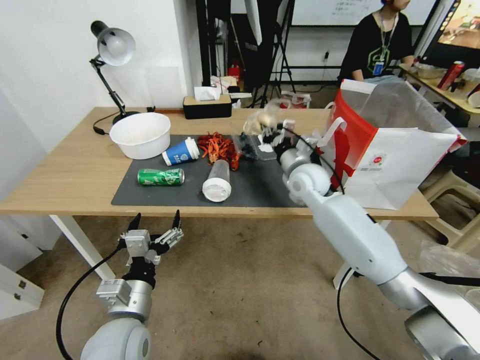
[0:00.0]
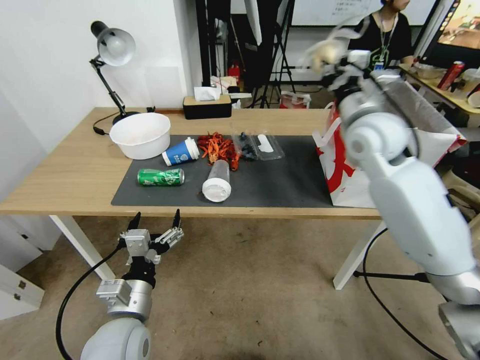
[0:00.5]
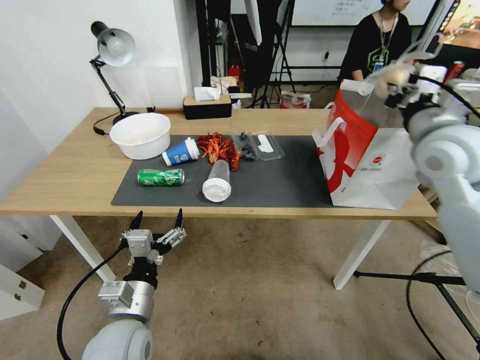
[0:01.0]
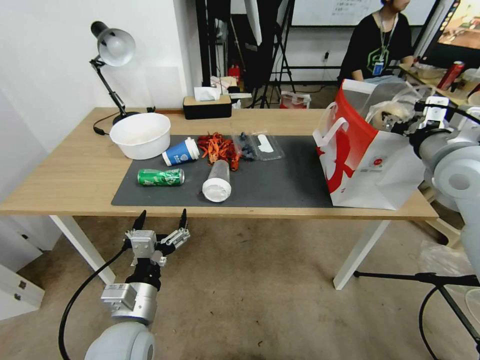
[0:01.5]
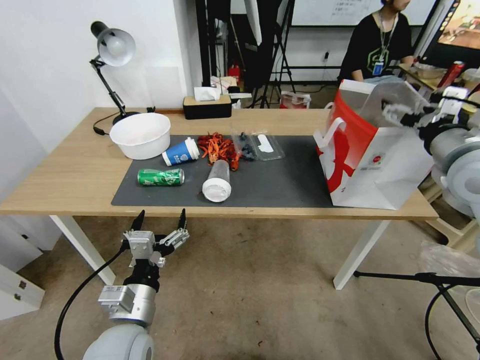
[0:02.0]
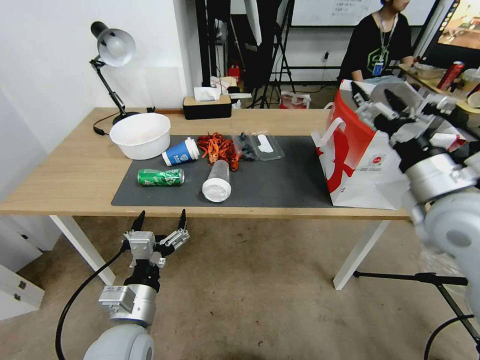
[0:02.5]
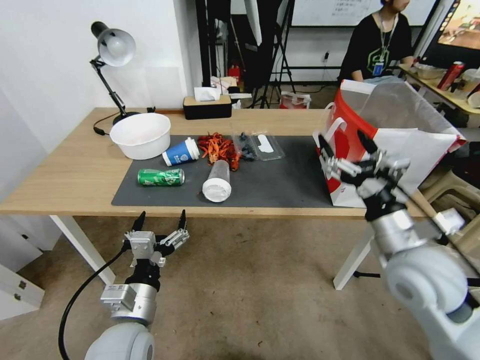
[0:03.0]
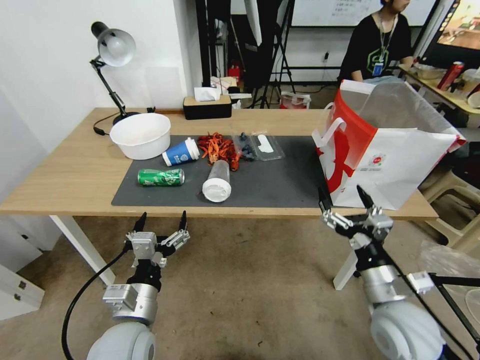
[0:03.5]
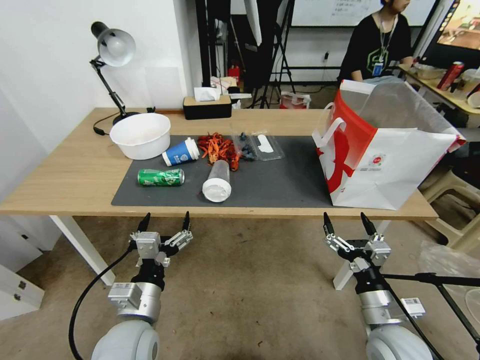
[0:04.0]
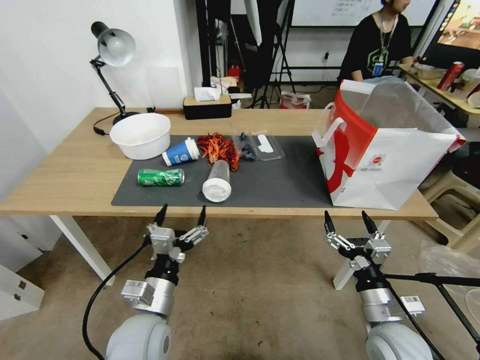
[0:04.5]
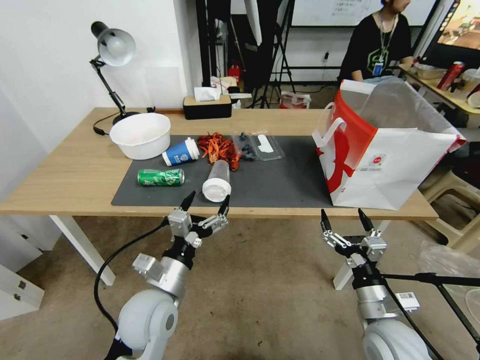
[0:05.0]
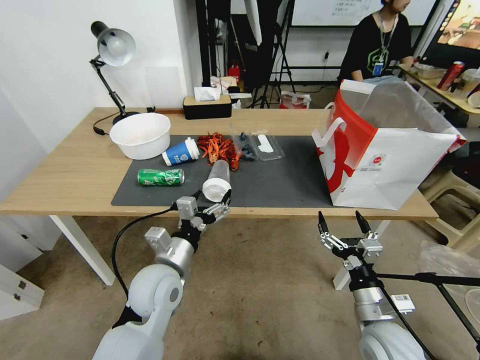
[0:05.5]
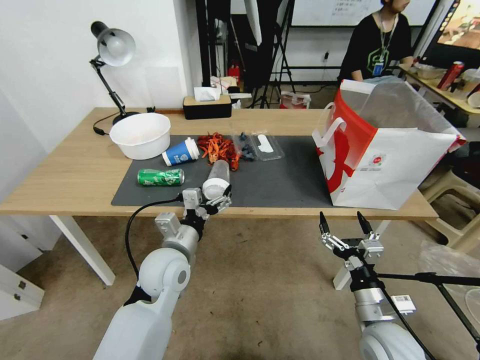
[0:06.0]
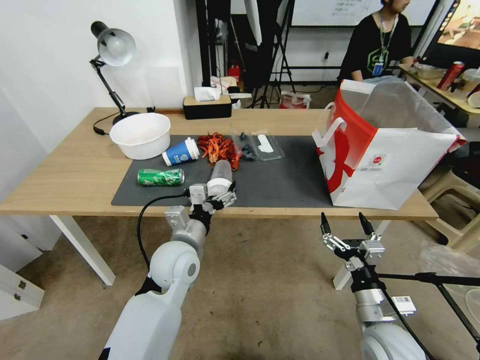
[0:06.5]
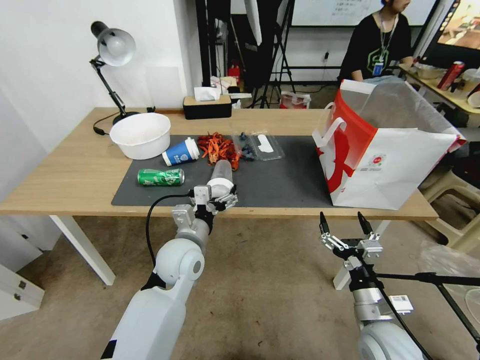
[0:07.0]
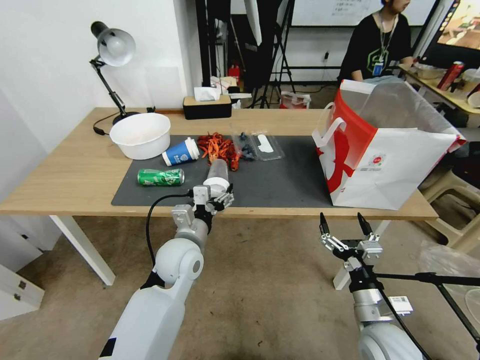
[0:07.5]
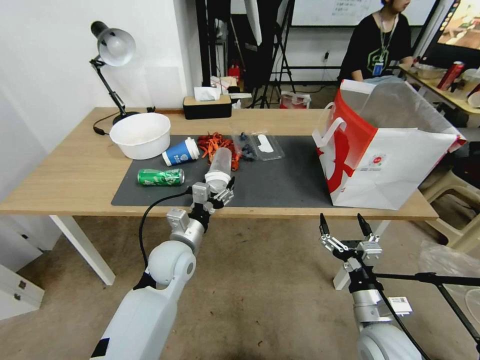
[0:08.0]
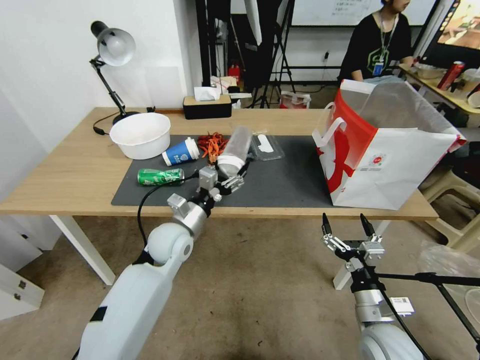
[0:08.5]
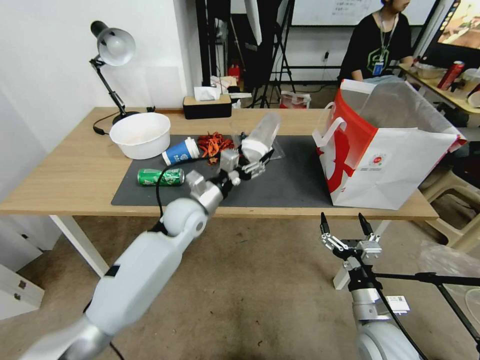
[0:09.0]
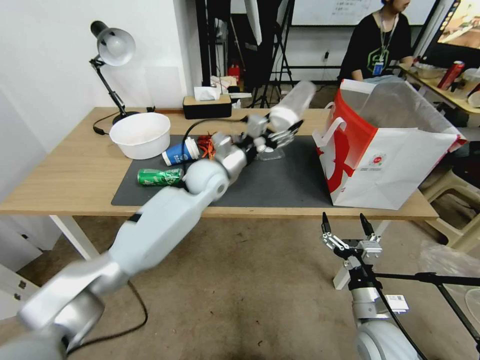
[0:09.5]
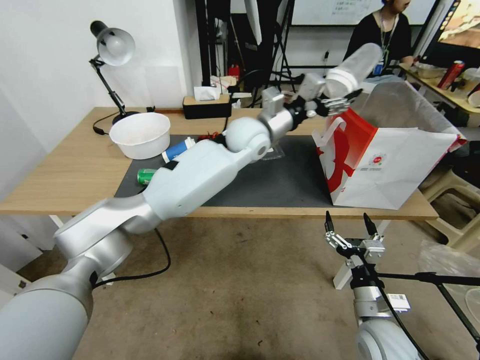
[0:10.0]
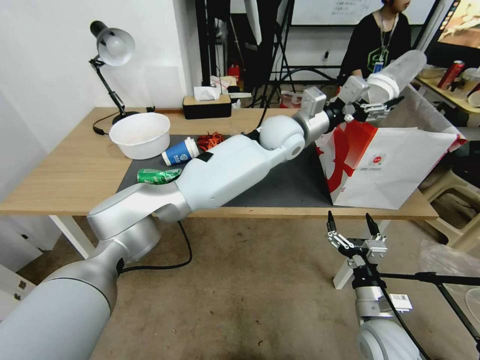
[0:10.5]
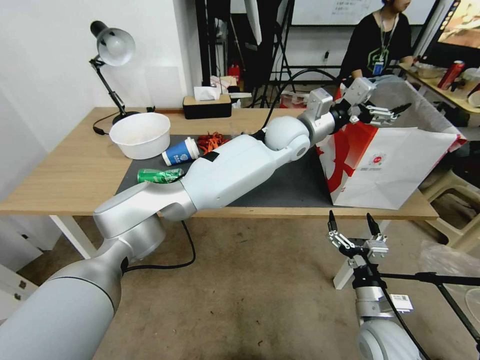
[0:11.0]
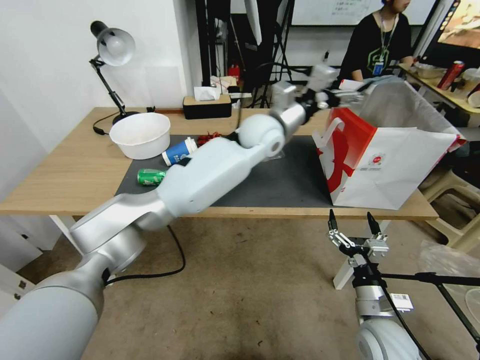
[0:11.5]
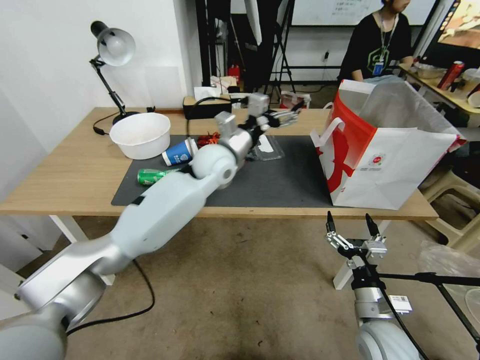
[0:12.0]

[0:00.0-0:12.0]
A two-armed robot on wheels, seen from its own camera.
0:00.0 to 0:02.0: The right gripper heads to the right, upward and backward, covering approximately 30 cm, and opens its fingers.
0:02.0 to 0:04.0: The right gripper is displaced downward and backward by roughly 35 cm.
0:04.0 to 0:06.0: The left gripper shifts about 15 cm forward.
0:06.0 to 0:08.0: The grippers make only small movements.
0:08.0 to 0:10.0: The left gripper is displaced upward, forward and to the right by some 35 cm.
0:10.0 to 0:12.0: The left gripper heads to the left and downward, covering approximately 10 cm.

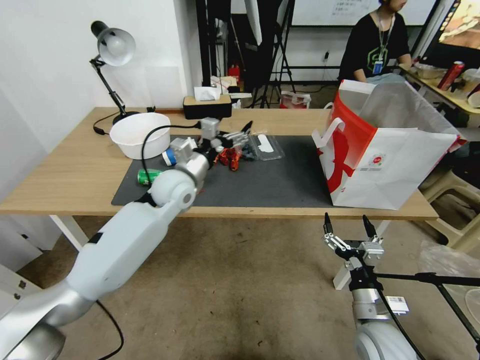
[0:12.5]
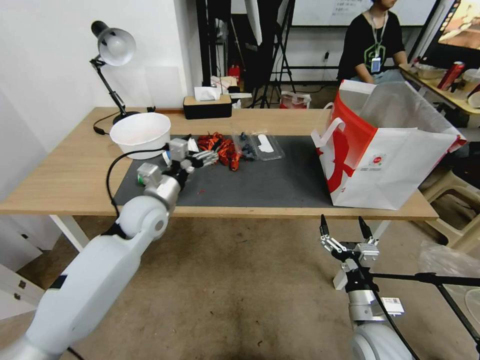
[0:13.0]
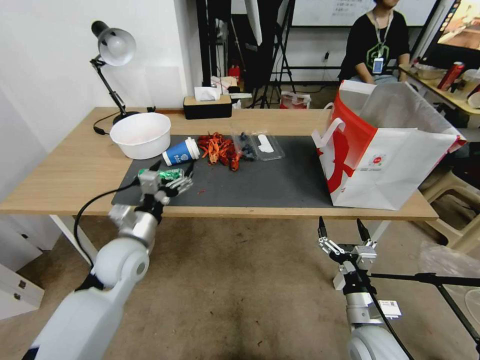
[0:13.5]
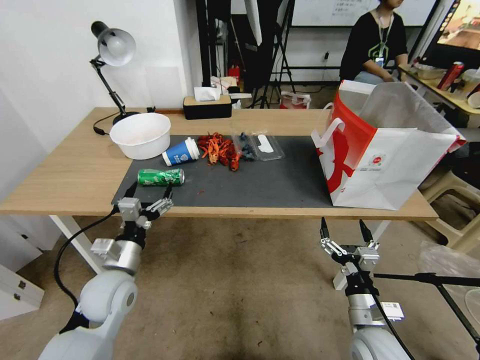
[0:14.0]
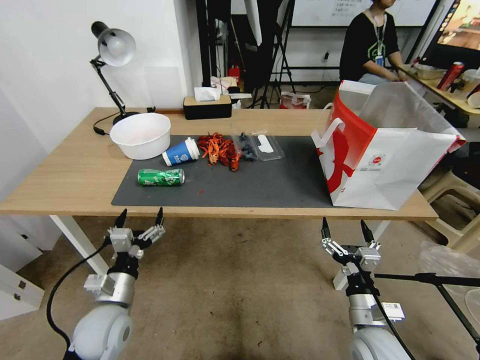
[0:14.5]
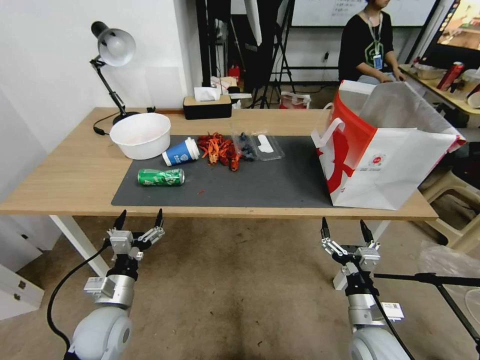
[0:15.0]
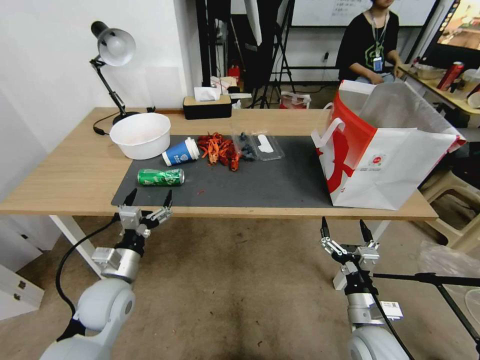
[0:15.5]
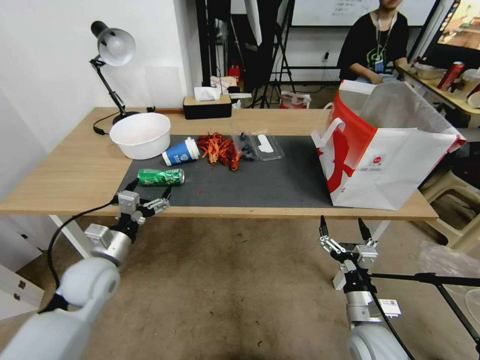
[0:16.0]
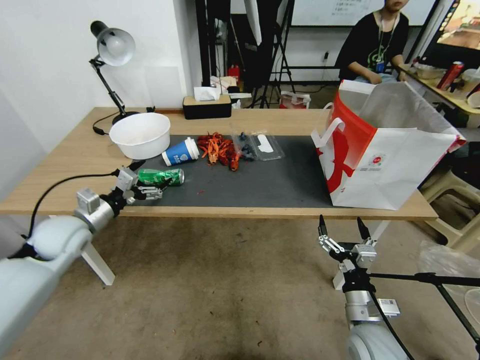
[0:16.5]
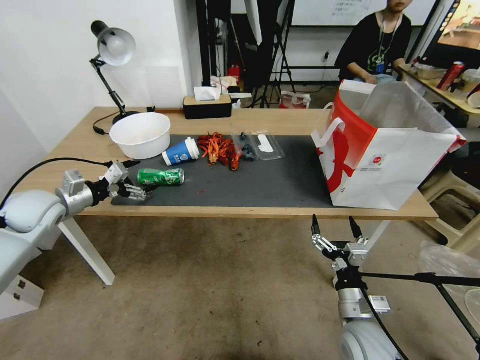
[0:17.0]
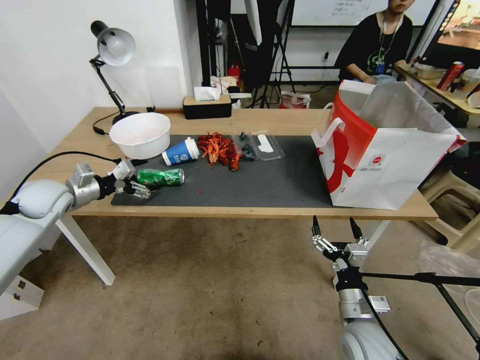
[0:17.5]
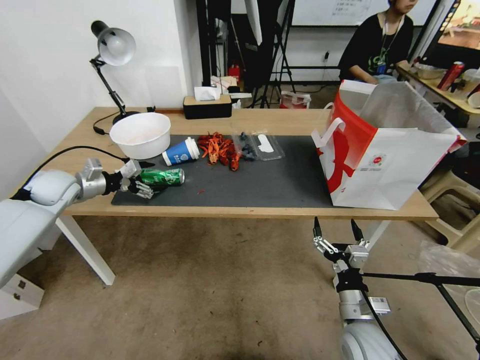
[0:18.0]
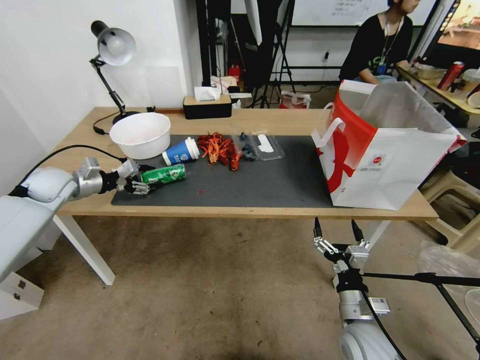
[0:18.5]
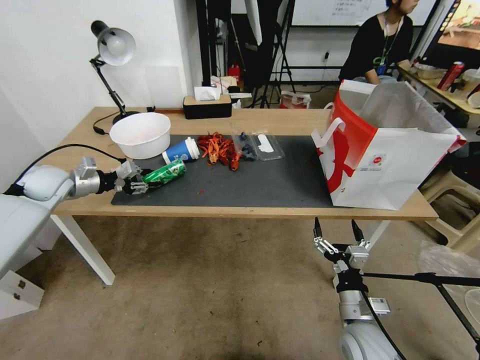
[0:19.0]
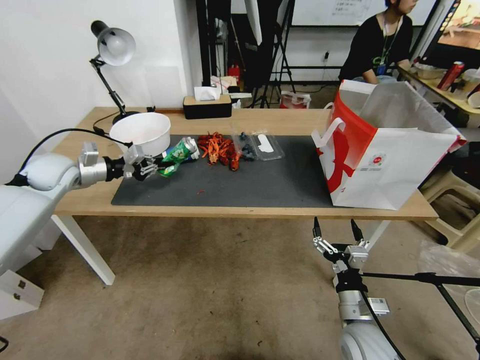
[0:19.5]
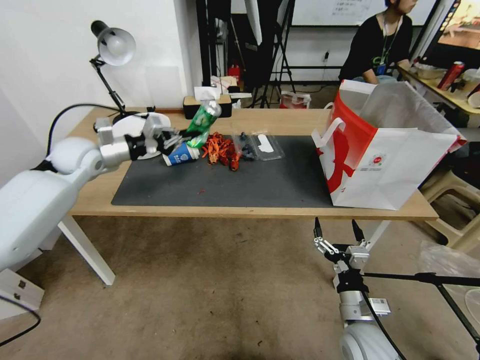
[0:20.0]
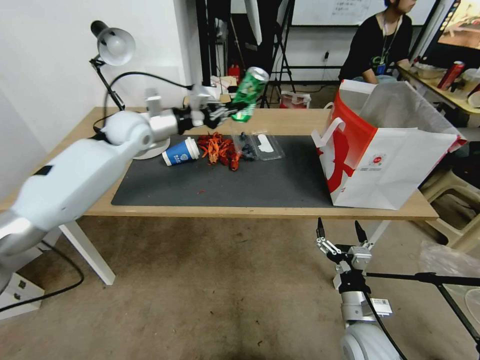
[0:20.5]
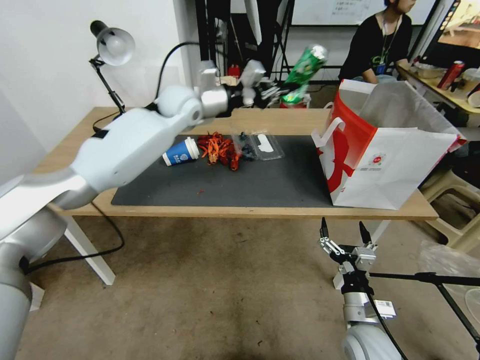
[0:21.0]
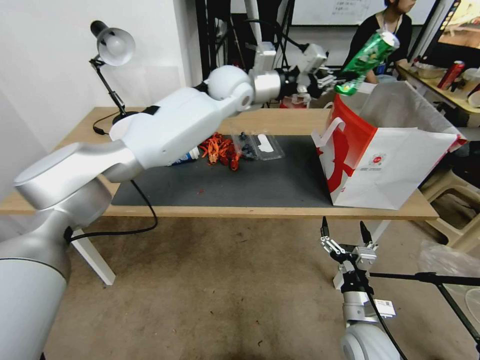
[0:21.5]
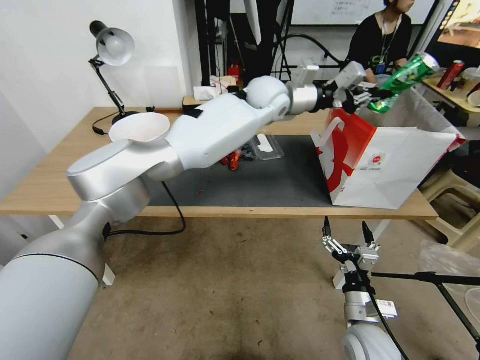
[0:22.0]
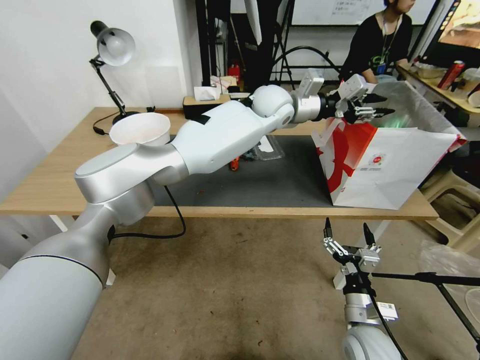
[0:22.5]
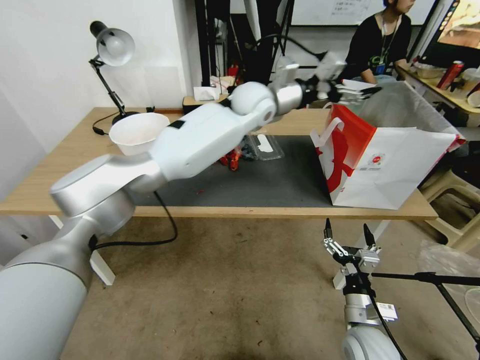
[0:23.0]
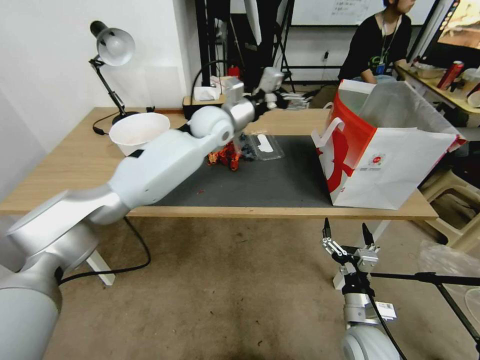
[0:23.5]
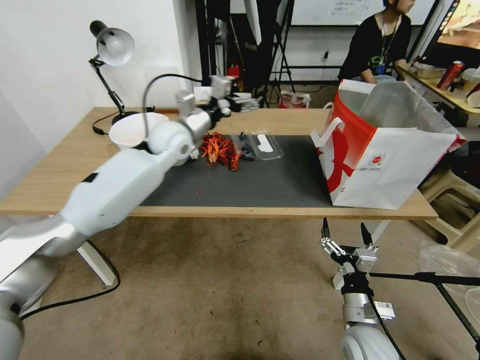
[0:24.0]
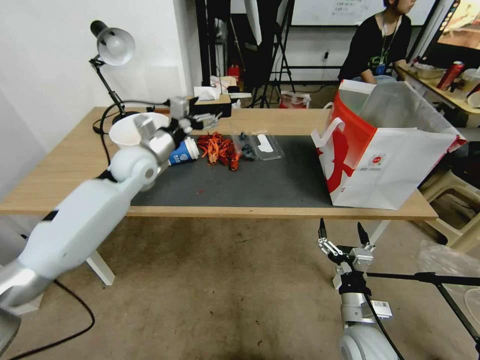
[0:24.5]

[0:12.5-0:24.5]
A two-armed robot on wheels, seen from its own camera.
0:12.5 to 0:14.5: The left gripper heads backward, downward and to the left, covering roughly 30 cm.
0:14.5 to 0:16.5: The left gripper goes about 20 cm forward, to the left and upward.
0:16.5 to 0:18.5: The left gripper travels forward and to the left by some 15 cm, and closes its fingers.
0:18.5 to 0:20.5: The left gripper travels to the right and upward by roughly 25 cm, and closes up.
0:20.5 to 0:22.5: The left gripper travels to the right by roughly 35 cm, and opens.
0:22.5 to 0:24.5: The left gripper goes some 30 cm to the left, and opens up.

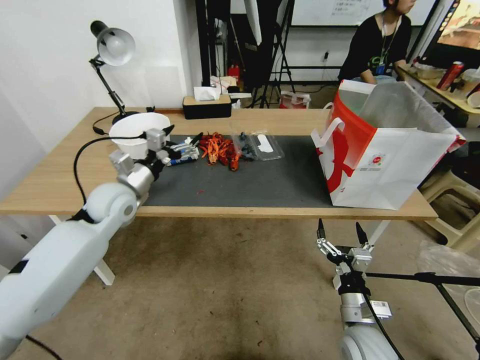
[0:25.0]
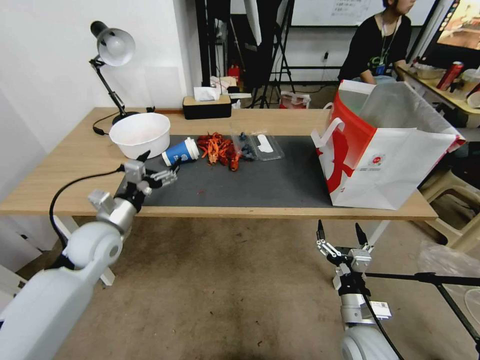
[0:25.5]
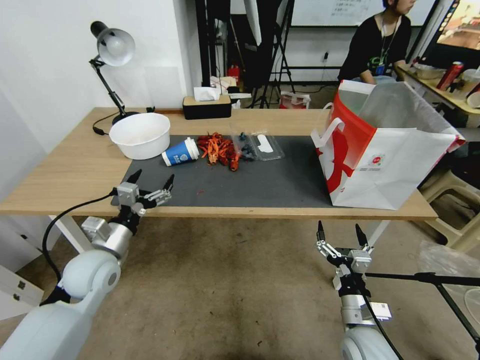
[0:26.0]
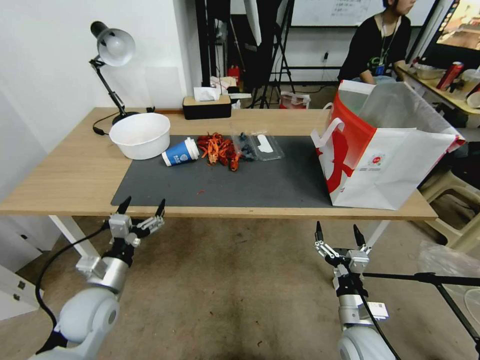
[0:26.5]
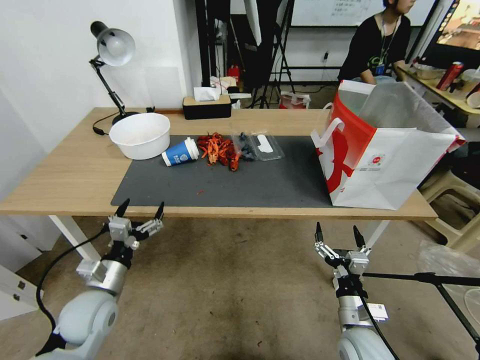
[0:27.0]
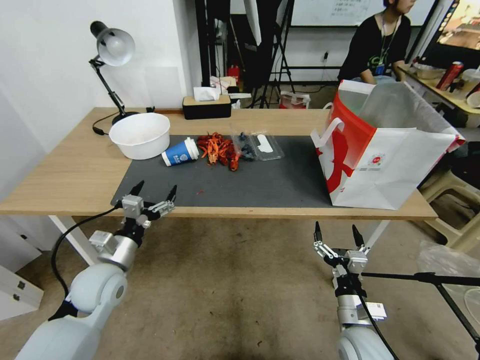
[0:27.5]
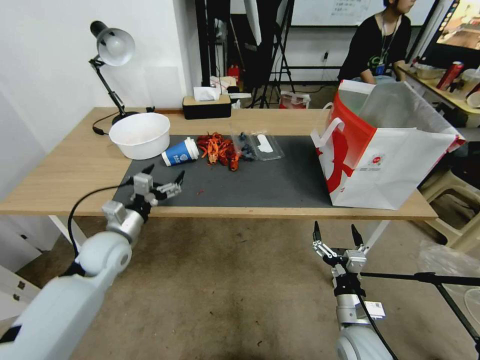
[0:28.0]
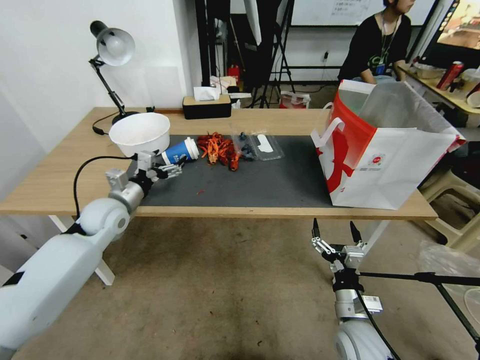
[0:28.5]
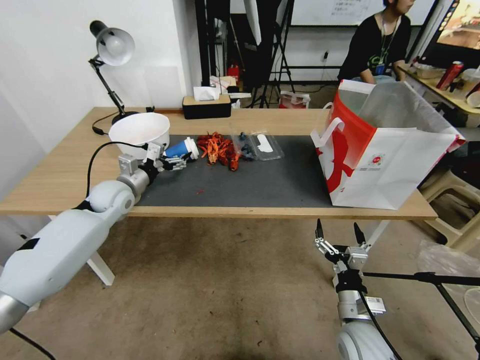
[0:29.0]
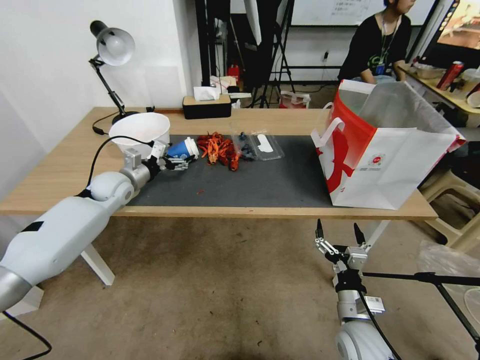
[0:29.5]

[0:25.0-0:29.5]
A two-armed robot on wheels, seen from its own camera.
0:25.0 to 0:27.0: The left gripper shifts some 25 cm backward and downward.
0:27.0 to 0:29.5: The left gripper shifts roughly 30 cm forward.
